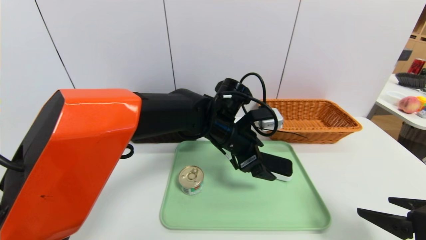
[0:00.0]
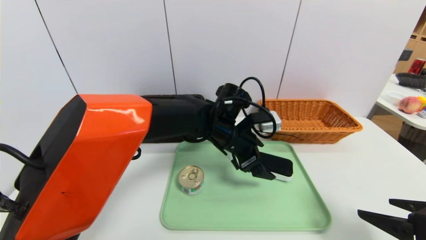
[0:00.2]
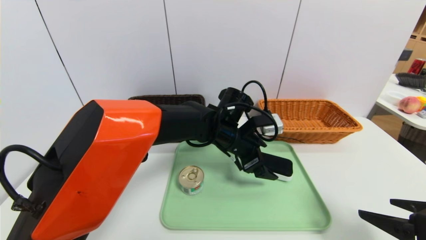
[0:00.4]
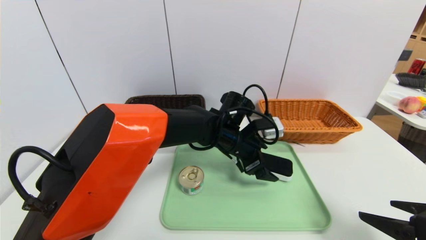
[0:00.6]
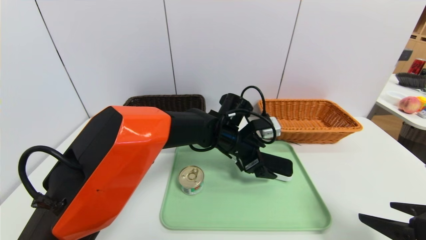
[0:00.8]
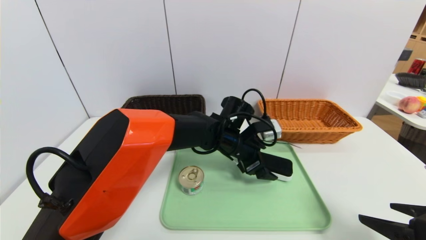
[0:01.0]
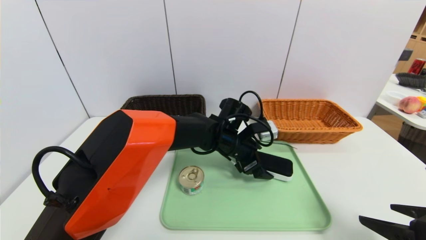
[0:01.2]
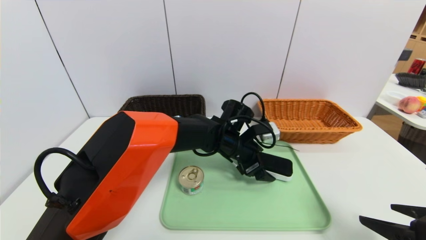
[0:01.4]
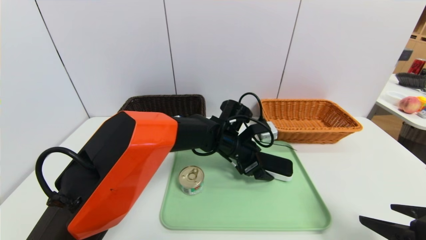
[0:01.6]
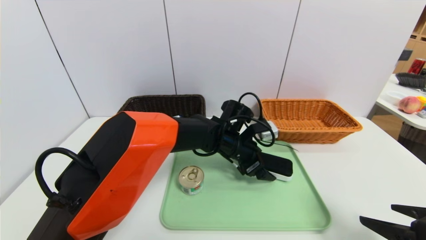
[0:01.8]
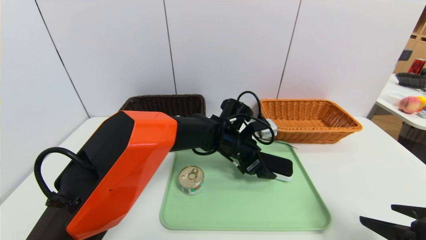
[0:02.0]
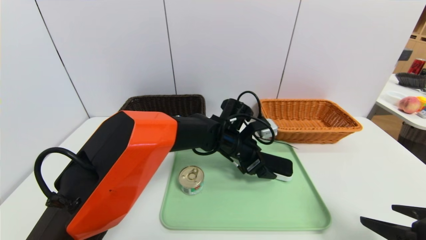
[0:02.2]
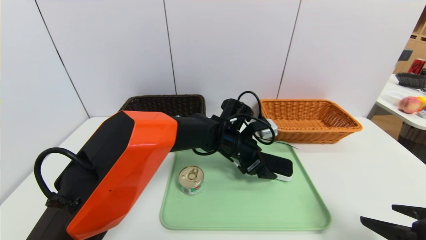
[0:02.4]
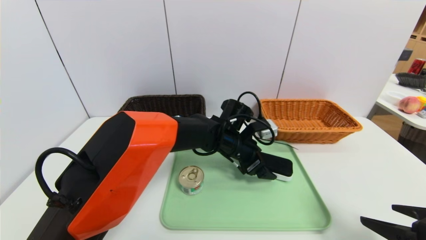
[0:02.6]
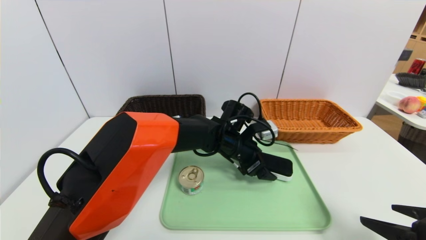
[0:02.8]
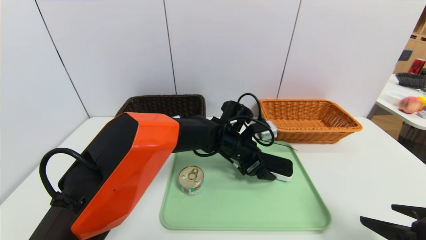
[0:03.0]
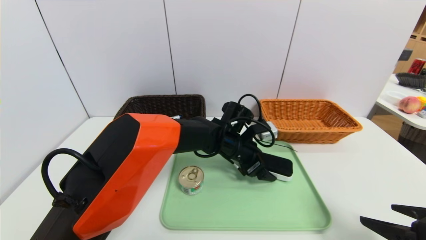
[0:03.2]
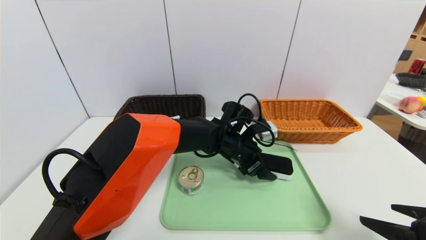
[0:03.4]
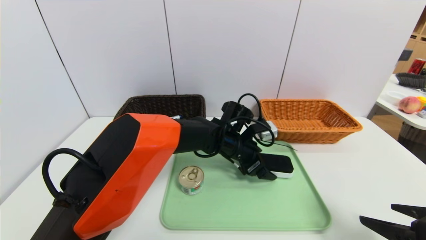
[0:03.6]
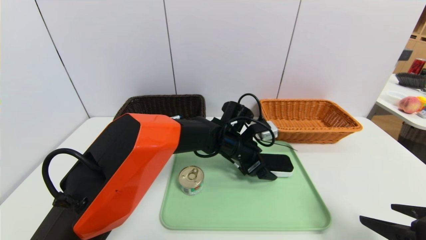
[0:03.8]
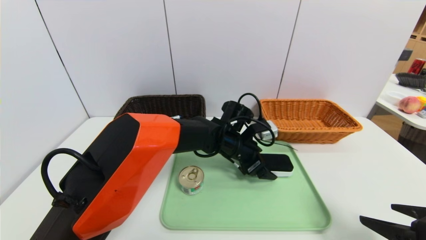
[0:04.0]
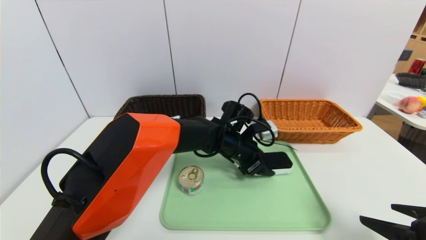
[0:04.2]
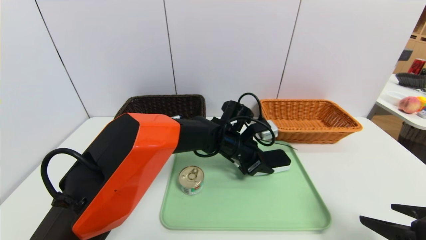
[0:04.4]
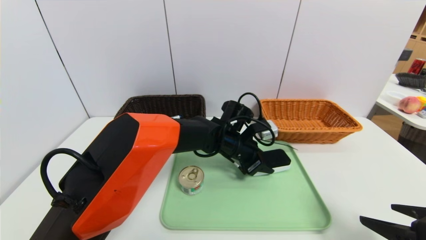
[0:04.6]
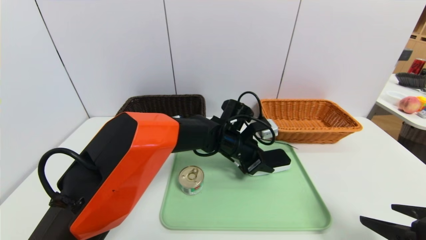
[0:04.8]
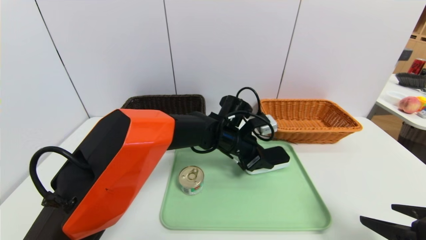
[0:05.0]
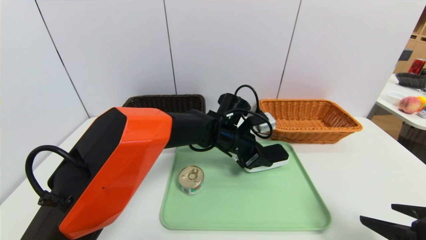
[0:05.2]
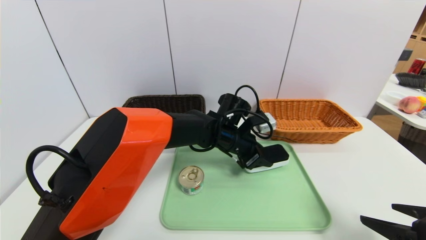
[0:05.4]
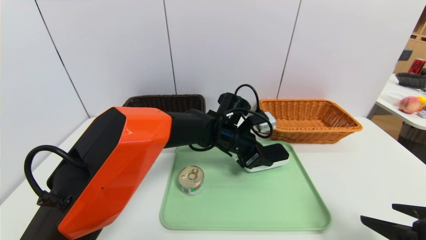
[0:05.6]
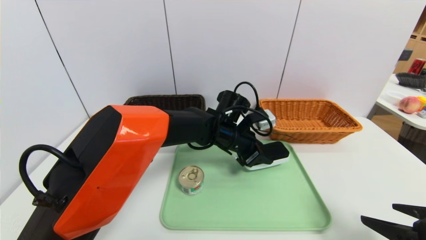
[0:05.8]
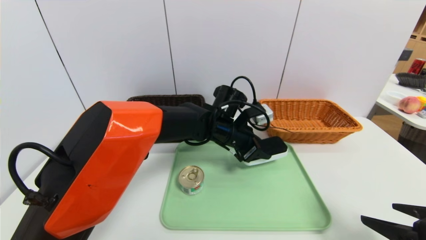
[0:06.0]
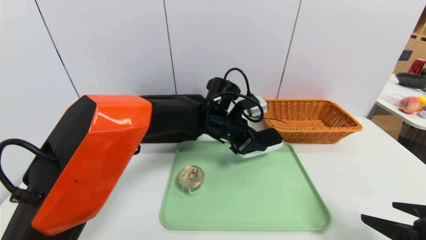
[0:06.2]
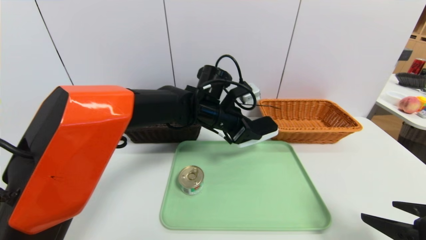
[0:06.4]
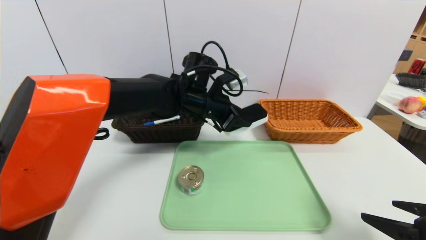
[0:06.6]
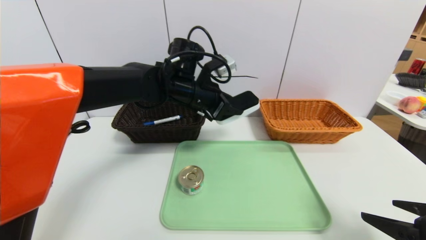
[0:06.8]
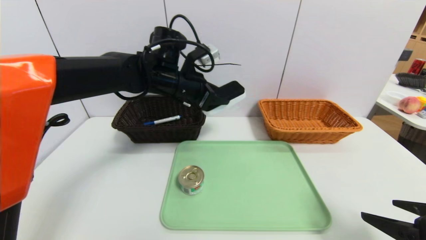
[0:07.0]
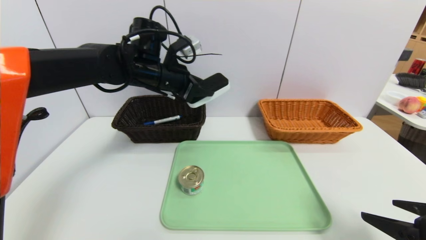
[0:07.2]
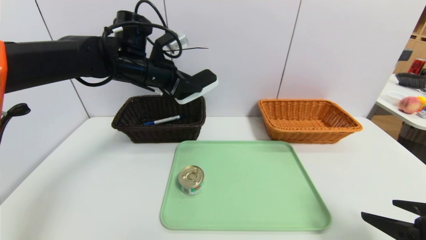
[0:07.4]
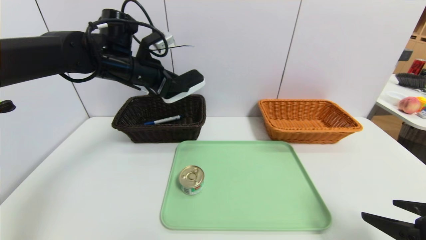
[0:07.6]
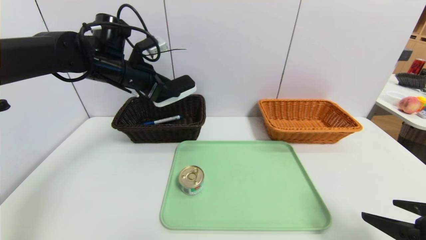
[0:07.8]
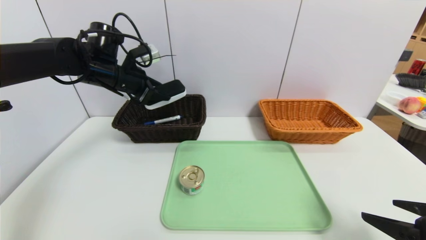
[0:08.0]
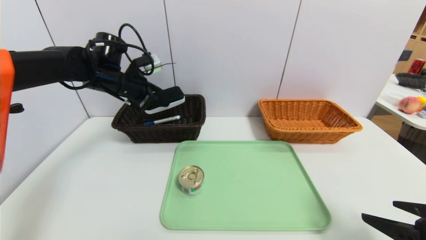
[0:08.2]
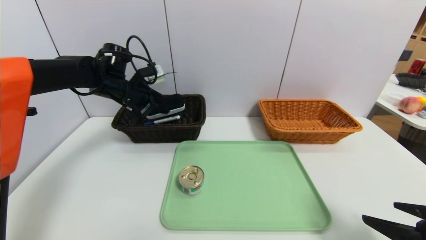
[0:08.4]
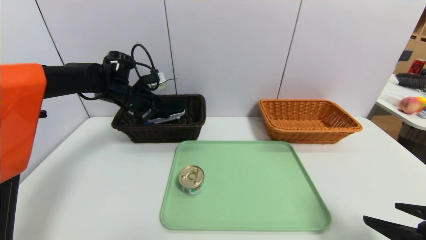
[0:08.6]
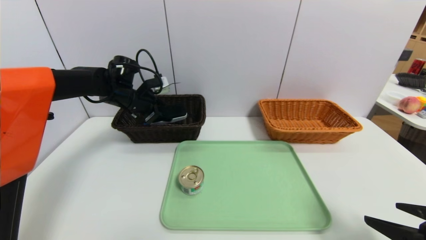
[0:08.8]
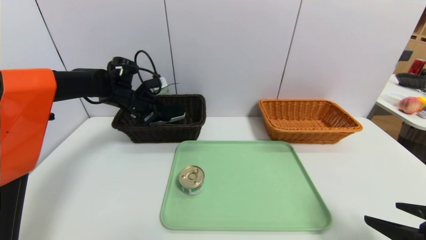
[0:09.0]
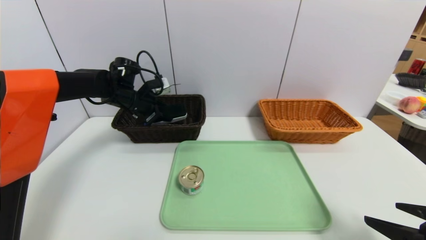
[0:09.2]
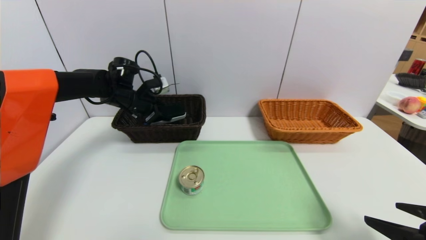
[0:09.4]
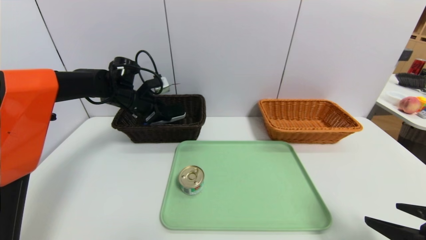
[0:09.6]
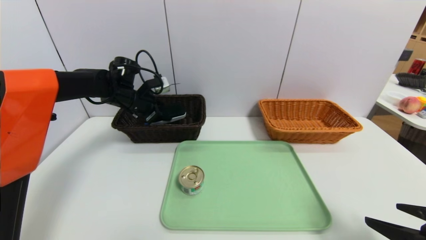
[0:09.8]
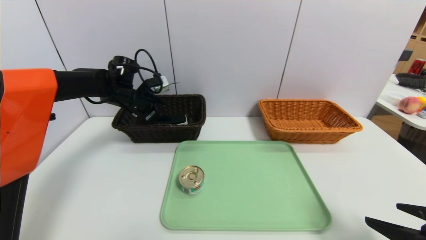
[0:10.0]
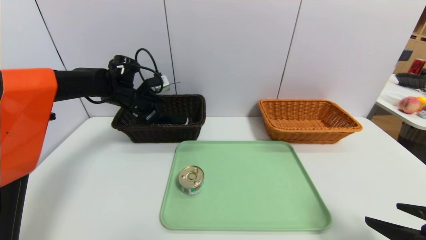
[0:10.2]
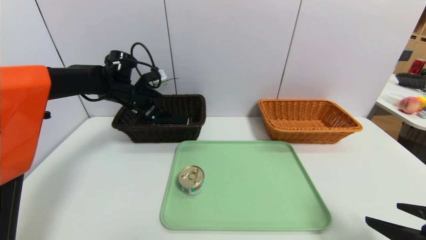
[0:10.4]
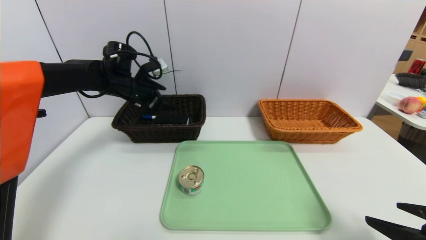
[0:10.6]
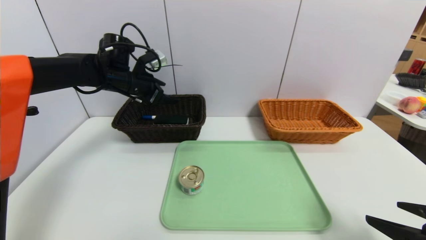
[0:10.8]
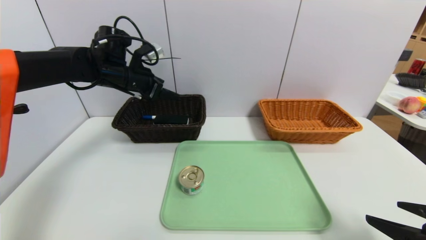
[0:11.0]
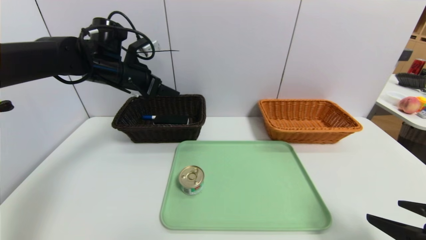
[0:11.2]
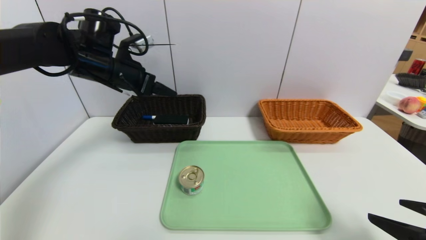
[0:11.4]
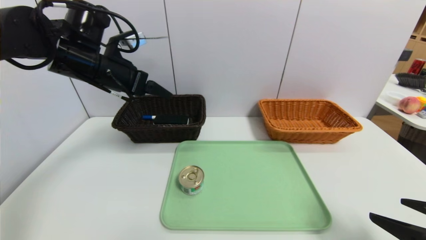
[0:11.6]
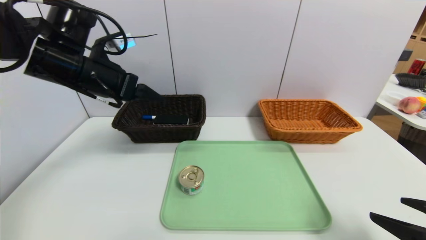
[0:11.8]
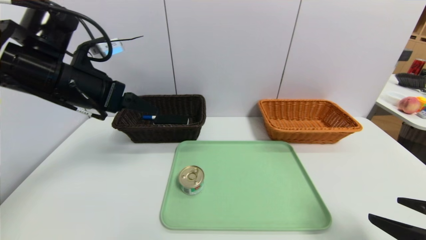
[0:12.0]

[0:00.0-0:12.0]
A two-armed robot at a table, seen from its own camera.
Task of the whole recording: place the food in the right basket with the right gripper, and place the non food items in the left basket with the left gripper.
Step, 0:00.0 to 0:10.2: Grasp the white eraser and put it in the left basket.
0:00.0 to 0:01.6: The left gripper is displaced downward by approximately 5 cm.
0:01.6 to 0:03.0: Both grippers stay about where they are.
0:03.0 to 0:04.4: The left gripper closes up.
0:04.4 to 0:06.0: The grippers stay close to where they were, moving slightly.
0:06.0 to 0:07.6: The left gripper shifts about 25 cm to the left and upward.
0:07.6 to 0:09.0: The left gripper moves downward and forward, some 10 cm.
0:09.0 to 0:10.4: The left gripper opens its fingers.
0:10.4 to 0:12.0: The left gripper shifts approximately 20 cm backward and upward.

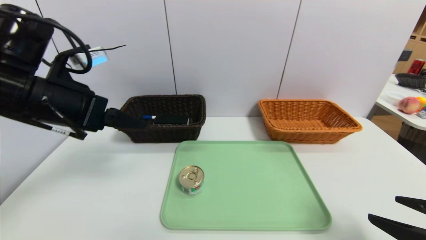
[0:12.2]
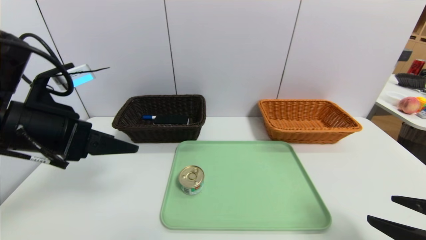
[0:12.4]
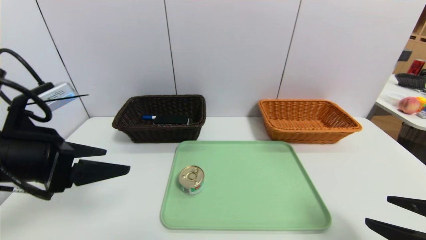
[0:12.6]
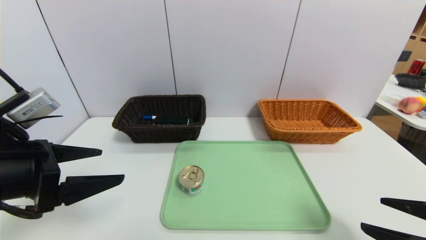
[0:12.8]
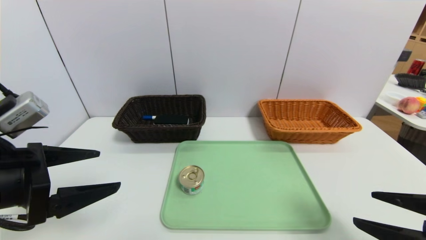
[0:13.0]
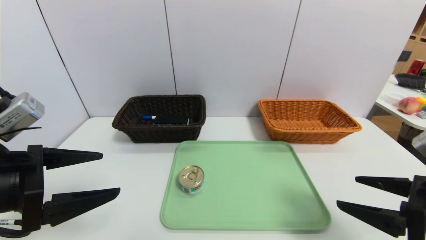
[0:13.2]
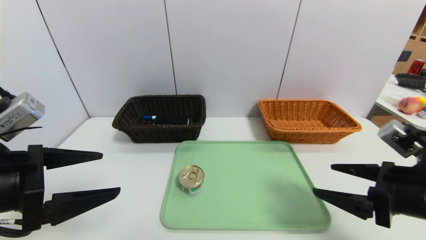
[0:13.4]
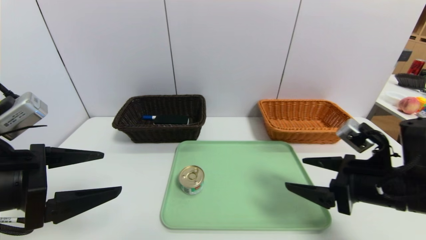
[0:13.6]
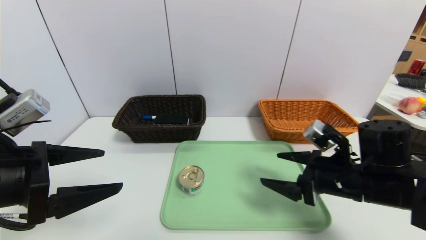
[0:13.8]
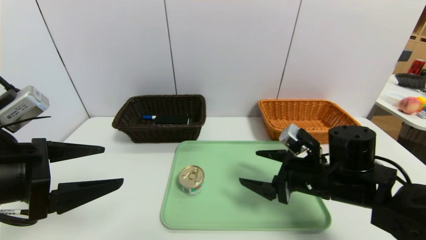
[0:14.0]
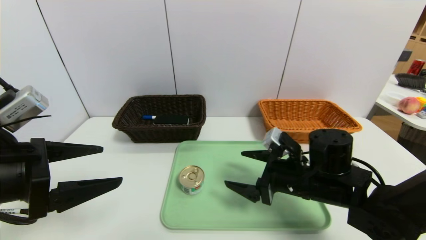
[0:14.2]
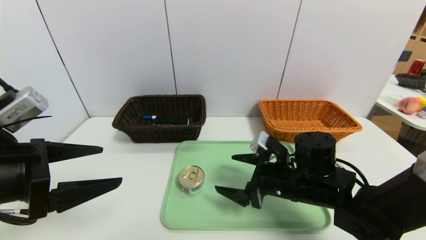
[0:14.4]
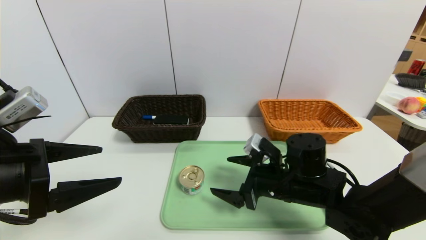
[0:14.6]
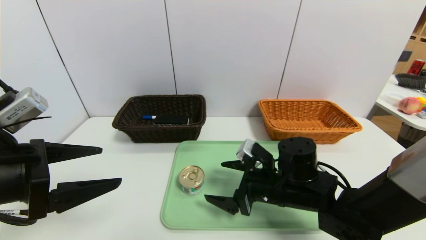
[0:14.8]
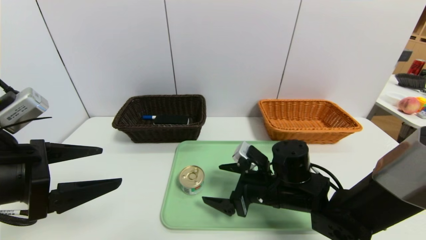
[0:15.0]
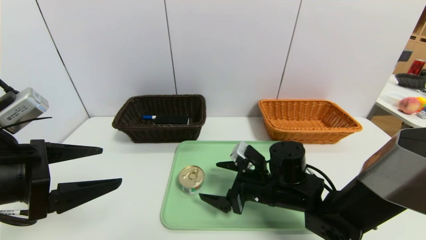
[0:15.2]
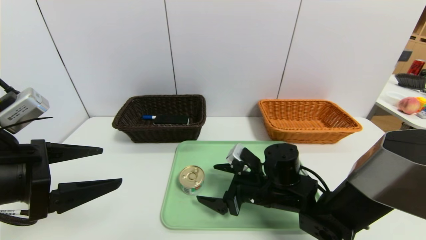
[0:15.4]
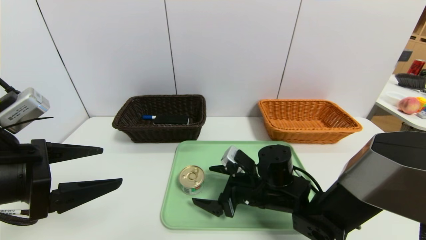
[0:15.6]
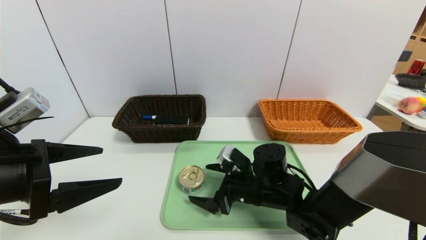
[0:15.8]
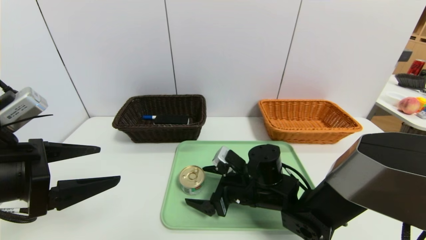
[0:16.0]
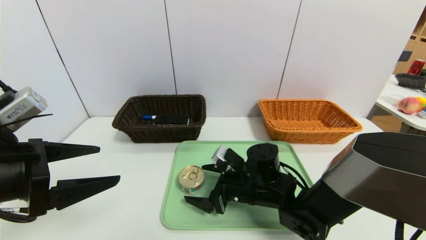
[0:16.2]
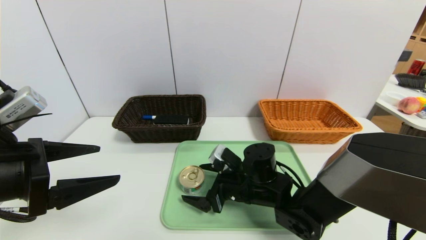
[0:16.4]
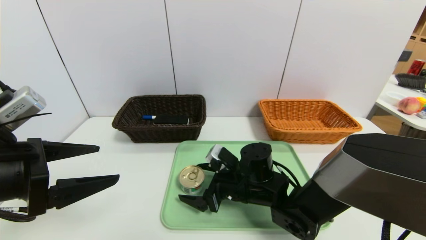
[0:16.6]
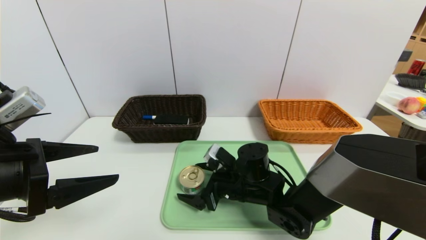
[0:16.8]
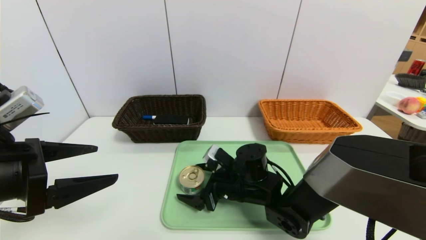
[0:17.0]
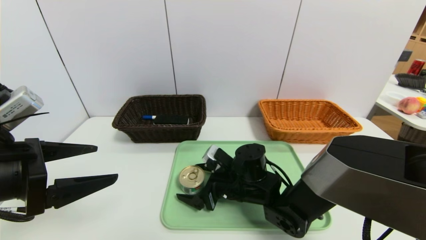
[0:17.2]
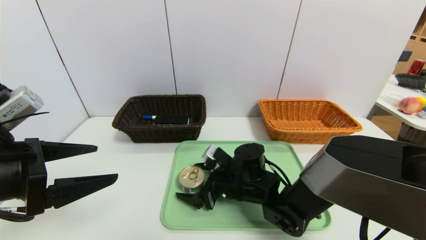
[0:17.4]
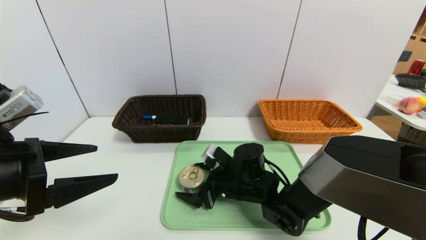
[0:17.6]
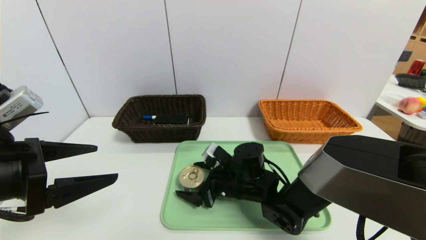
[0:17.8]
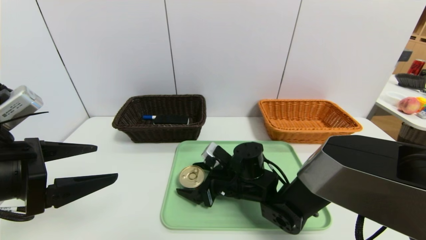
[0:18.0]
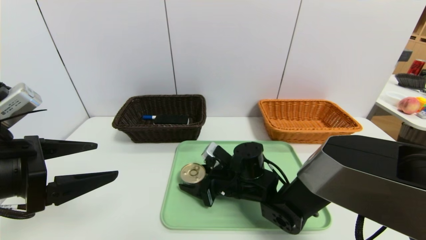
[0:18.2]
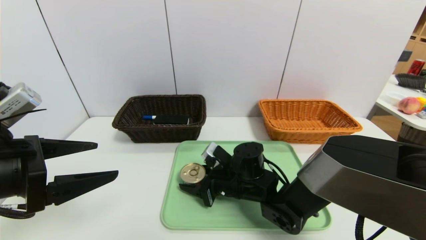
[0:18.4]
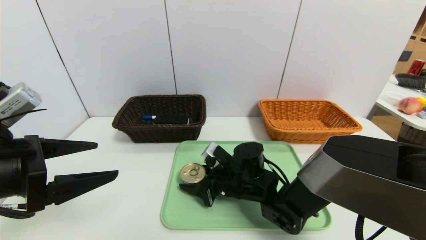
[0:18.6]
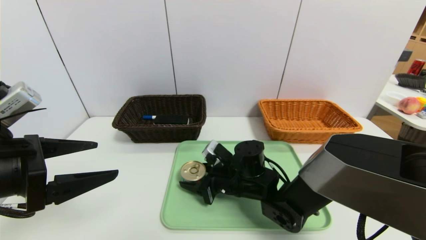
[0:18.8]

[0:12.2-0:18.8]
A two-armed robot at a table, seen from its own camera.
Task of the whole recording: place the food in the right basket with the right gripper, and place the non food items in the left basket with the left gripper.
0:12.2 to 0:13.8: The right gripper shifts some 15 cm forward and to the left. Meanwhile the left gripper shifts some 10 cm backward and downward.
0:13.8 to 0:15.4: The right gripper shifts about 15 cm to the left and downward.
0:15.4 to 0:17.2: The right gripper is displaced to the left by roughly 5 cm.
0:17.2 to 0:18.8: The right gripper closes up.
